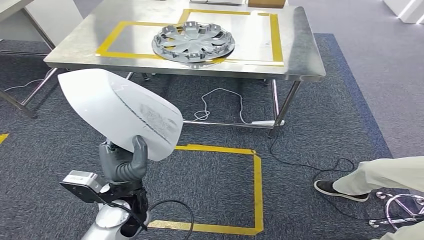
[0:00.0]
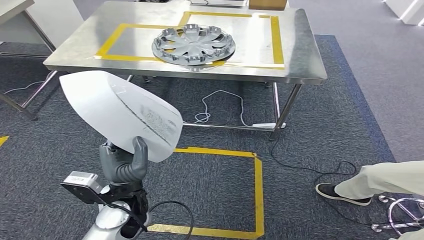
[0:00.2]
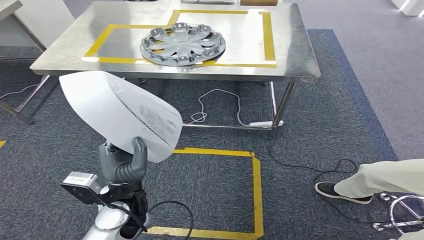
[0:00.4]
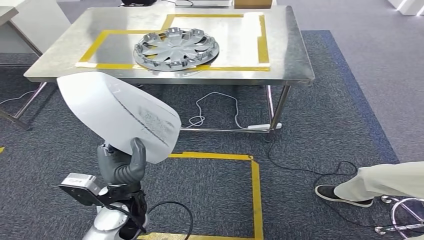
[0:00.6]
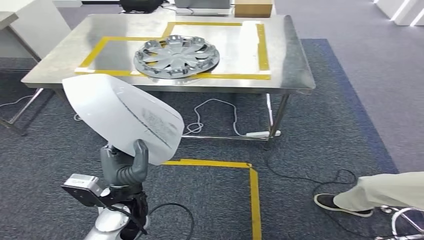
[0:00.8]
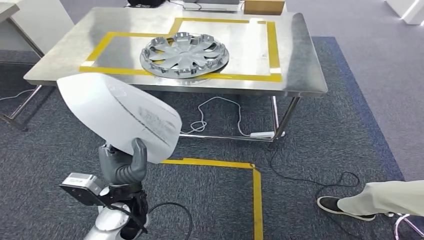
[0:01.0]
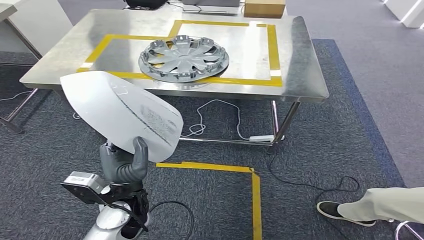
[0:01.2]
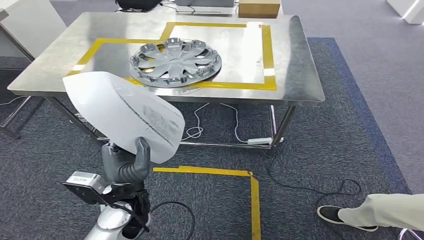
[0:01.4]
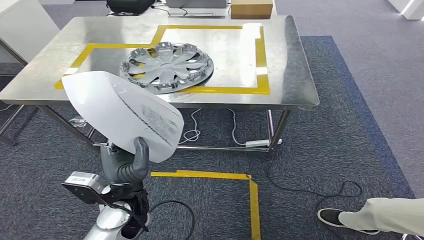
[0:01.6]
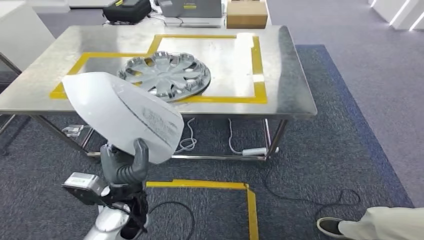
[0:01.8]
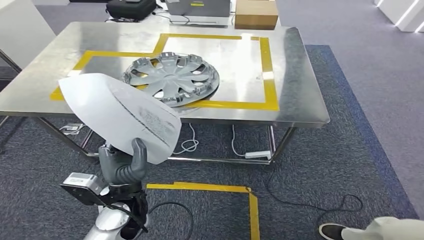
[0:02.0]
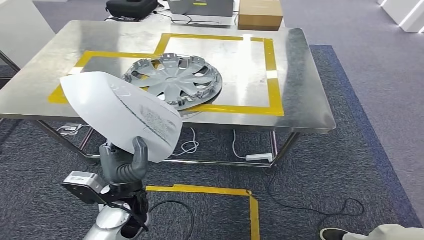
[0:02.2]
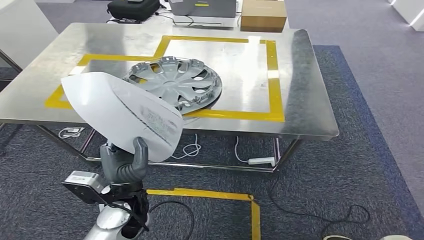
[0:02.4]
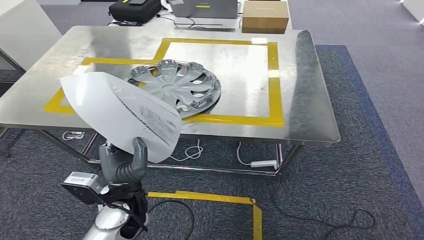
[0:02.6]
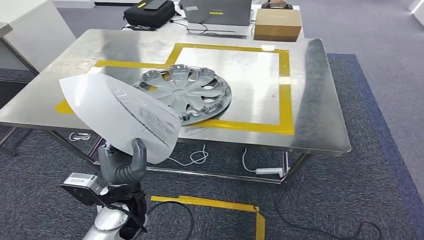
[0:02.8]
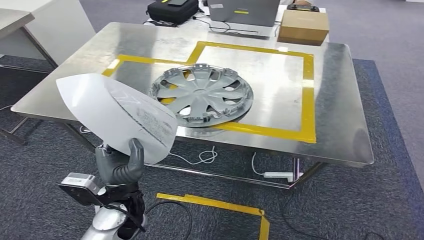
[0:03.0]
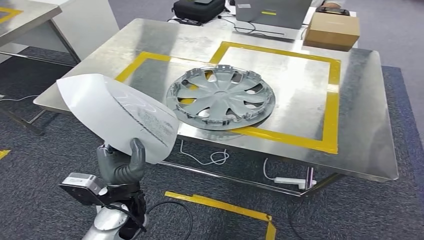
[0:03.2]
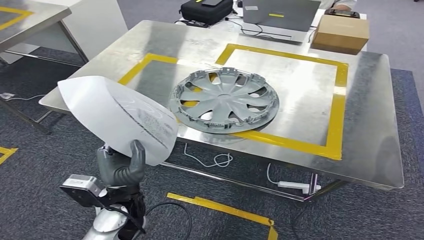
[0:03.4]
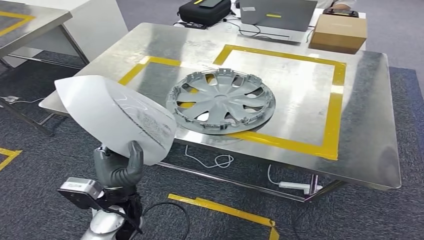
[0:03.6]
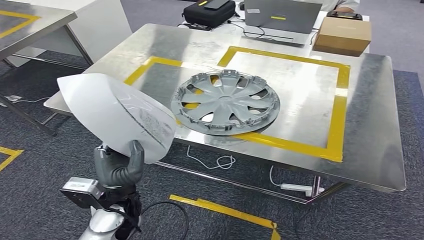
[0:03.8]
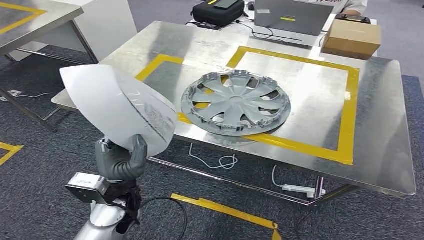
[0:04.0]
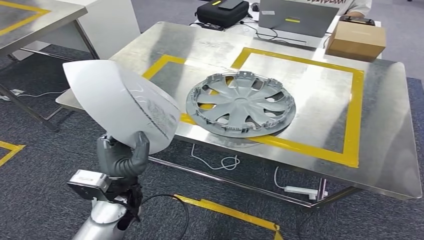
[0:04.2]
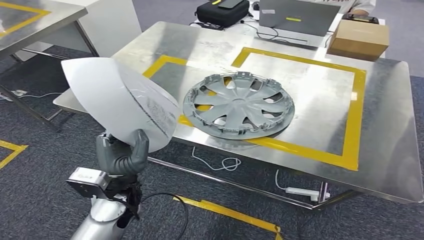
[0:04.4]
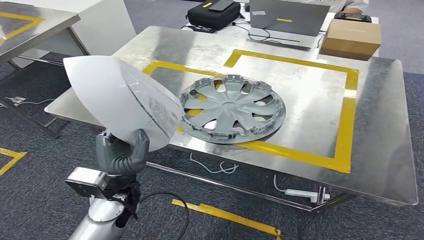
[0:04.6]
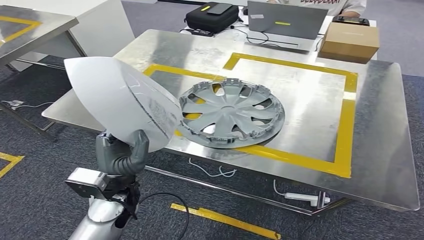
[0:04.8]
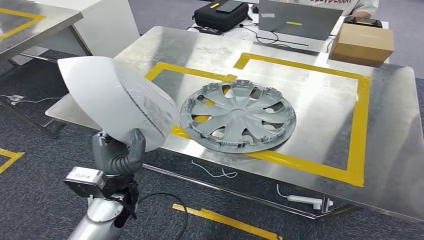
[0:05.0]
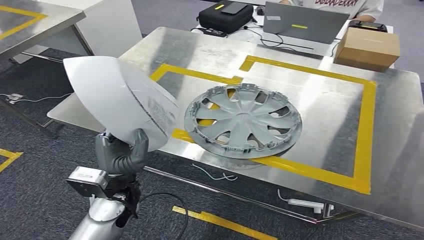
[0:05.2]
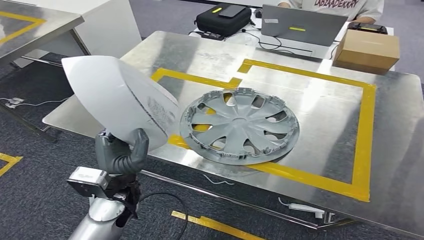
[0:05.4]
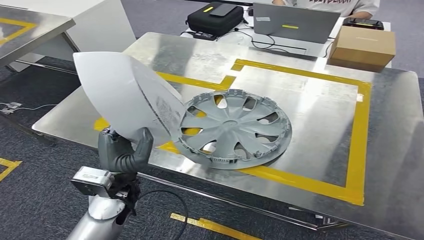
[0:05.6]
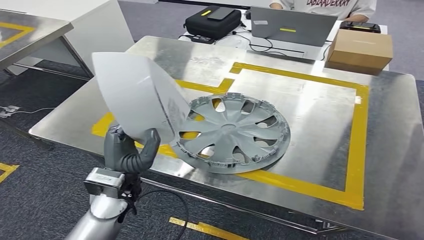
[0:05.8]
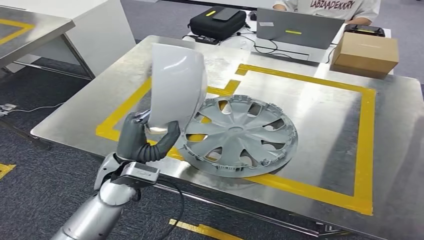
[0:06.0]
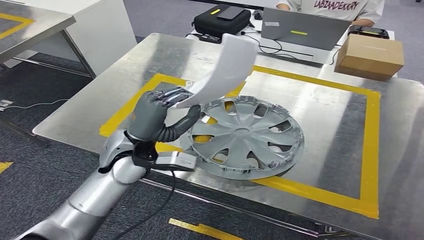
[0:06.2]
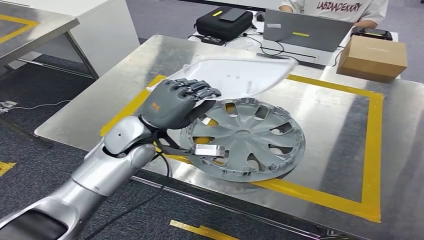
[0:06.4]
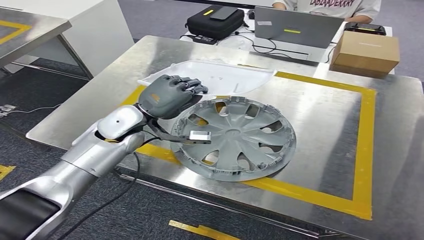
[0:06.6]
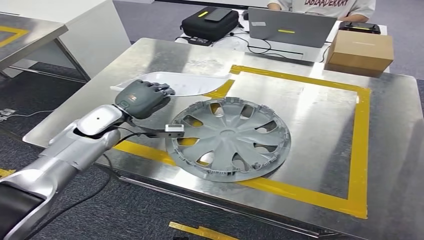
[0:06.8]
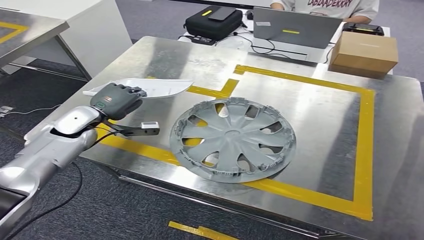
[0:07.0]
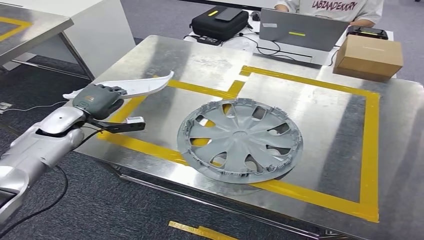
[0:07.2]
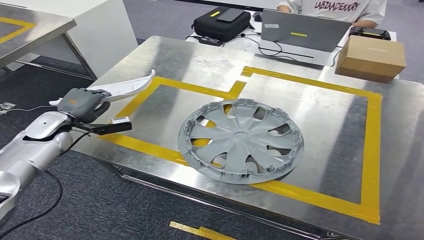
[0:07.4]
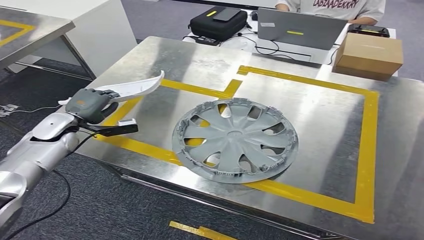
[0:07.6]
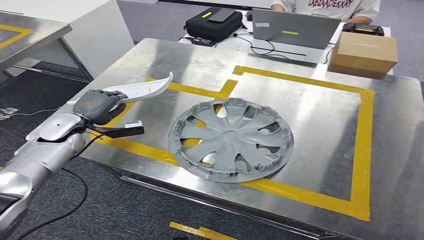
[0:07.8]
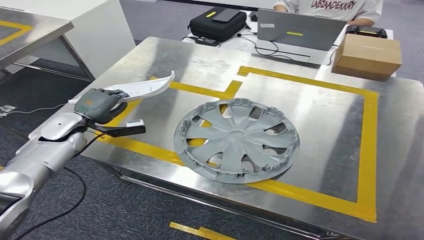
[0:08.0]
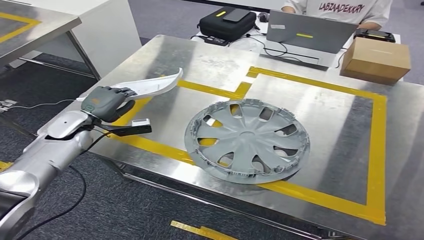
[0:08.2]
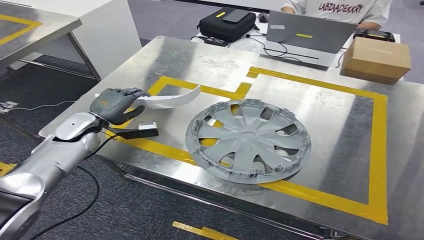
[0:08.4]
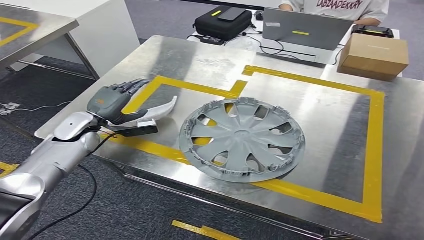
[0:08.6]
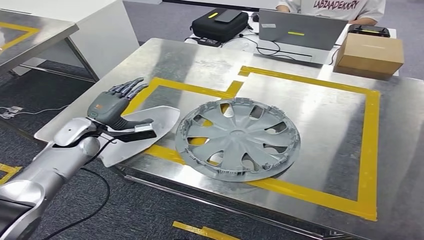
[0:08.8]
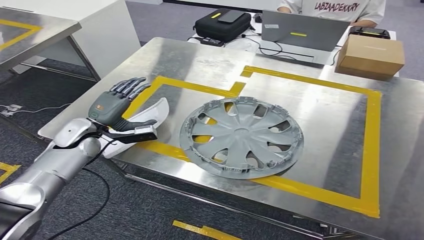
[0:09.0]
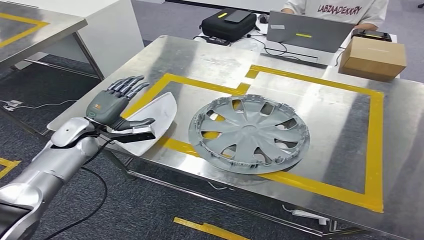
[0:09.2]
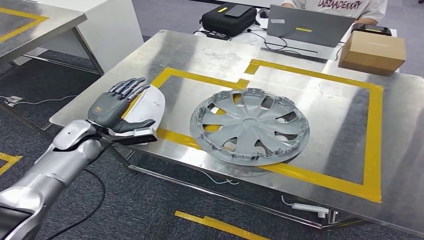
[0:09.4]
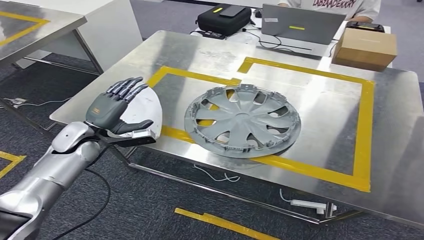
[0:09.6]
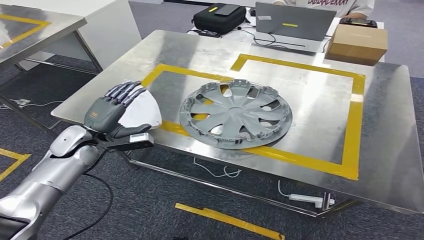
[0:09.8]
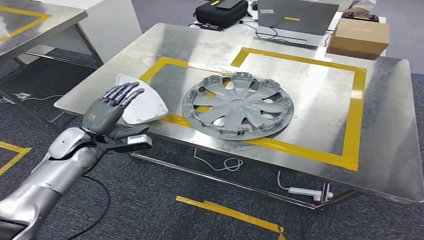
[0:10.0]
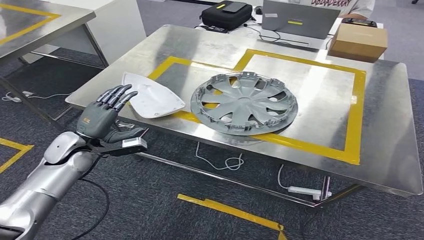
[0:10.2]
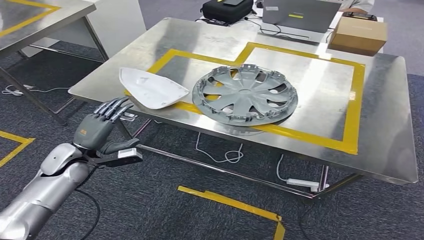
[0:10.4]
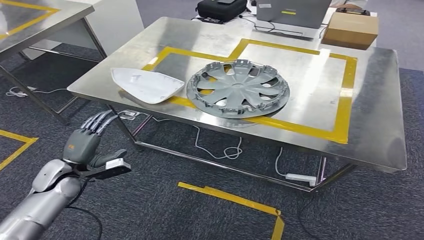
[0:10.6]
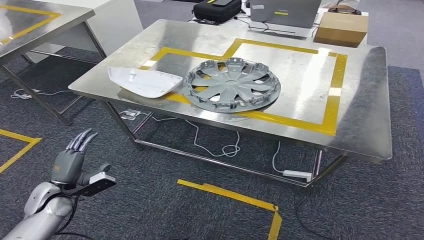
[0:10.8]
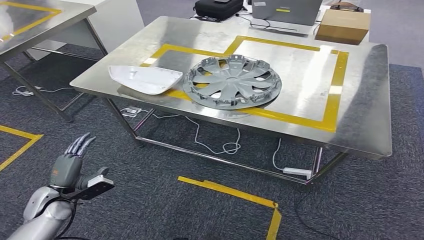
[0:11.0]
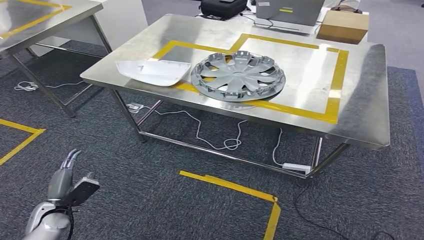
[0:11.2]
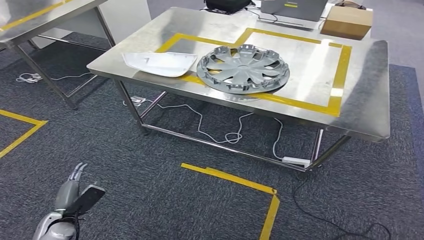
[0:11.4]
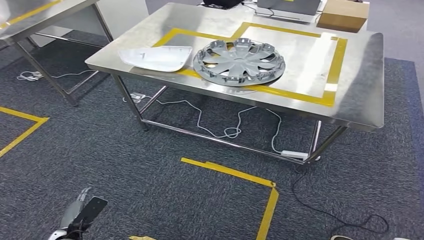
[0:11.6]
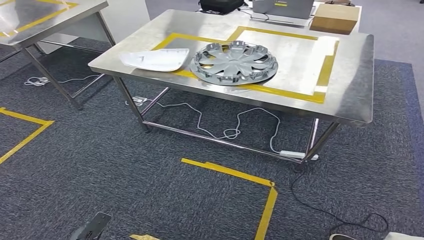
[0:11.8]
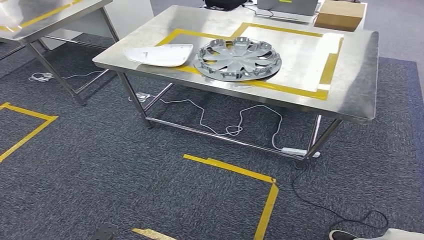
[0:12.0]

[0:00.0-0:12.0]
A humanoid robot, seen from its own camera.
Step, 0:00.0 to 0:02.2: Move the small component to the workbench.
Step, 0:02.4 to 0:10.6: Insert the small component into the corresponding slot on the workbench.

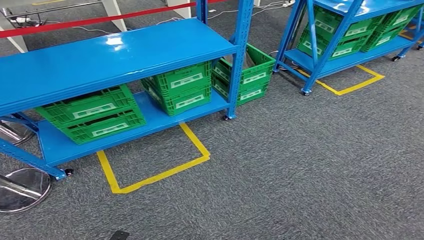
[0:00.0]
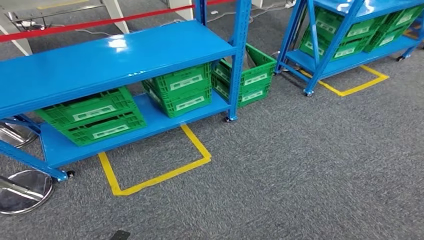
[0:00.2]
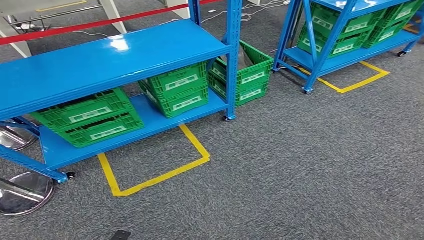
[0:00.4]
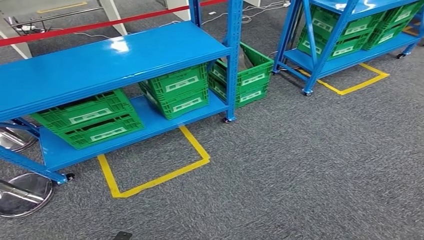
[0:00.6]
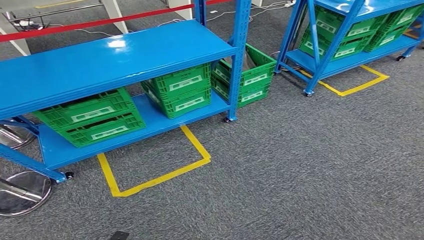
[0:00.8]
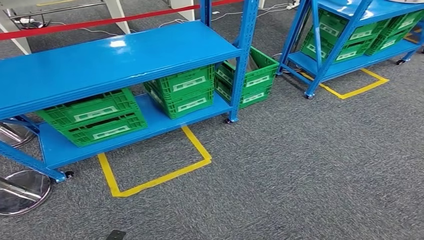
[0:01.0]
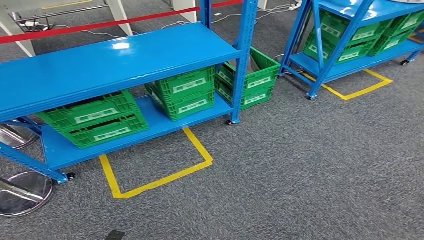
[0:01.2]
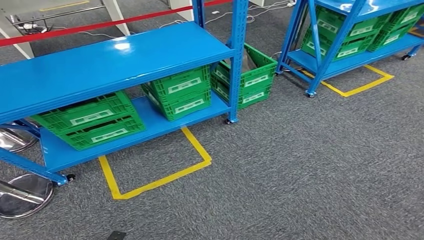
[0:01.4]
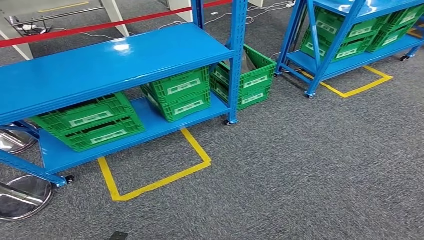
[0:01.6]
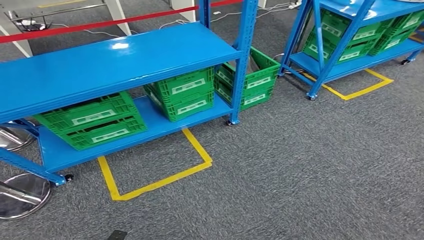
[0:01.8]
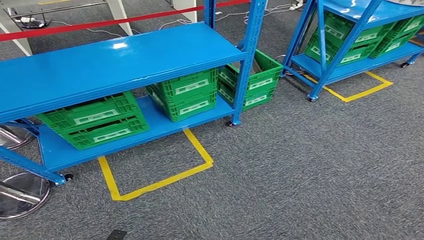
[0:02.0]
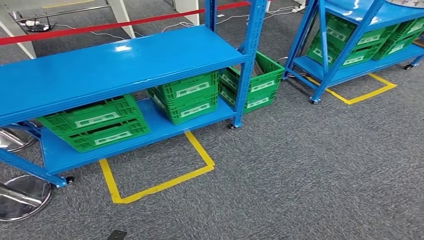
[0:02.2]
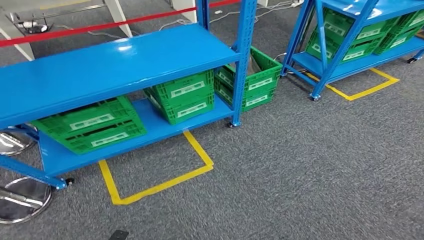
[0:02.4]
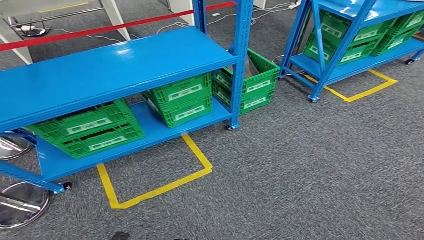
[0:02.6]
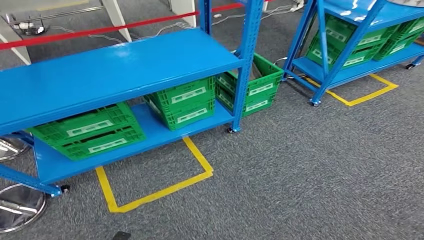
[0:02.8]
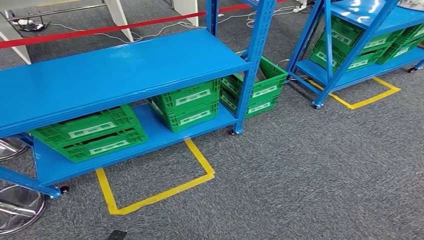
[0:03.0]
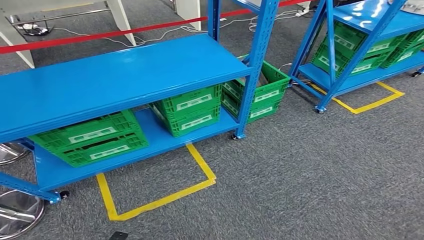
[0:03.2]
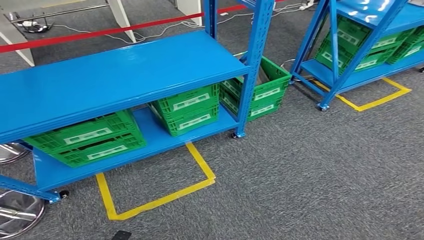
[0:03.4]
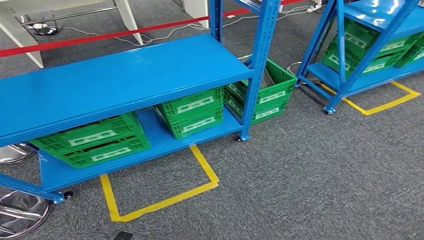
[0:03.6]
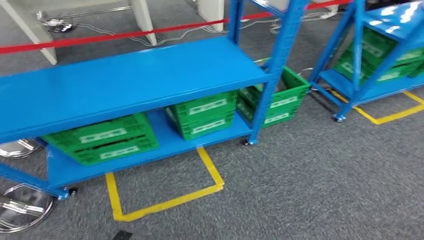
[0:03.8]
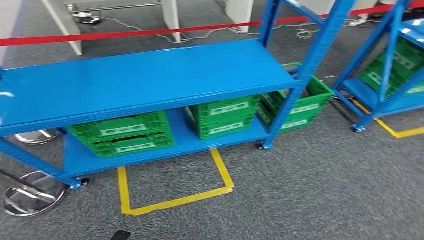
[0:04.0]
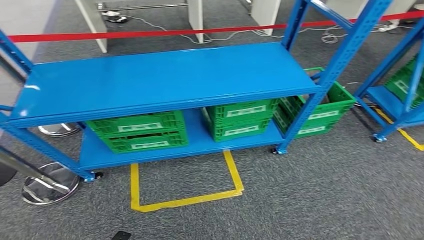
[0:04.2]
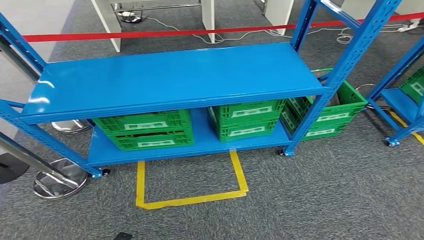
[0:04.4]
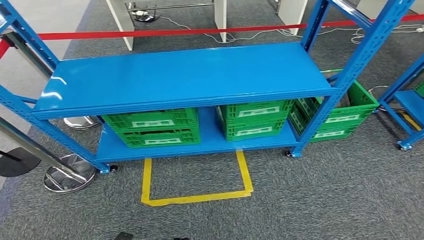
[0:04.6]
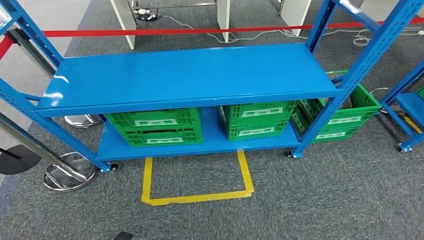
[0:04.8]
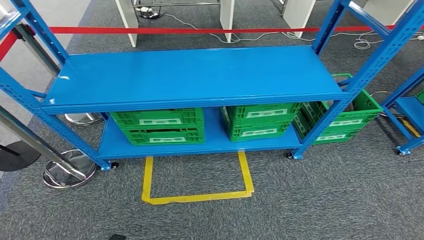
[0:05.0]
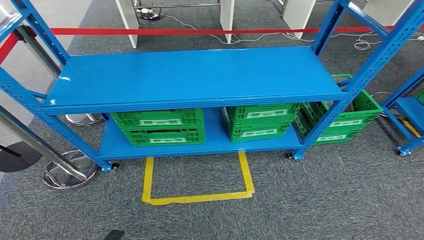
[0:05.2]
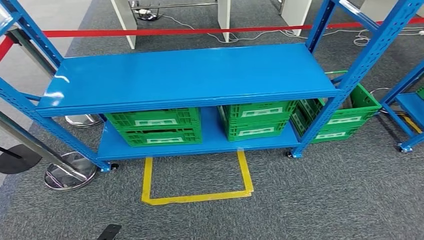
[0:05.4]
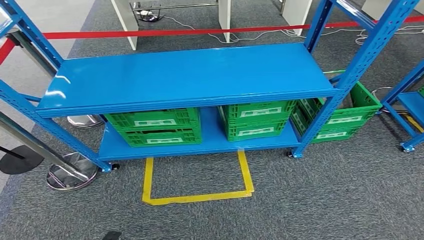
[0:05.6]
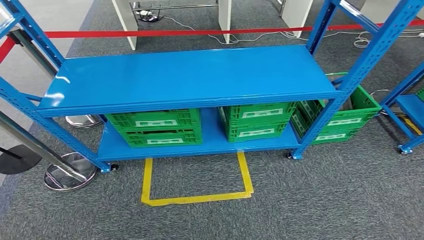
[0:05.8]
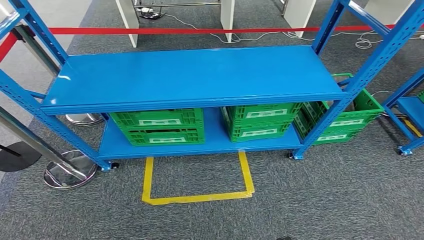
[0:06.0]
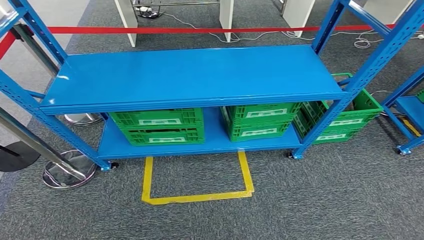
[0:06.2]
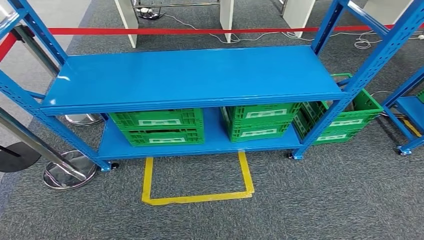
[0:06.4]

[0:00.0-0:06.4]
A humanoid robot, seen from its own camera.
Step, 0:00.0 to 0:06.4: Move to the initial position at the workbench.
0:04.8 to 0:06.4: The right hand moves about 5 cm; the left hand travels backward by roughly 5 cm.
